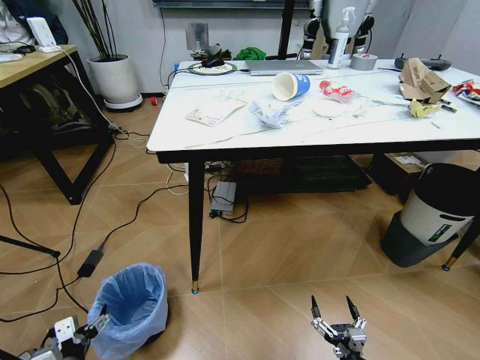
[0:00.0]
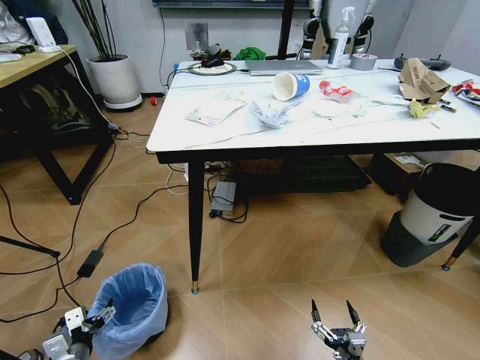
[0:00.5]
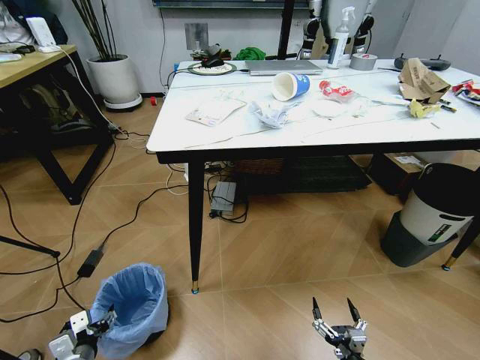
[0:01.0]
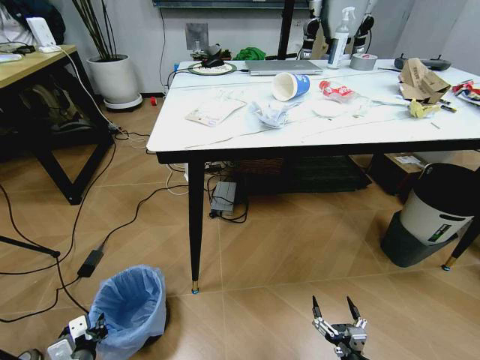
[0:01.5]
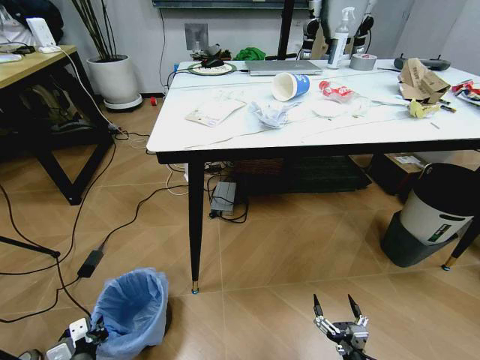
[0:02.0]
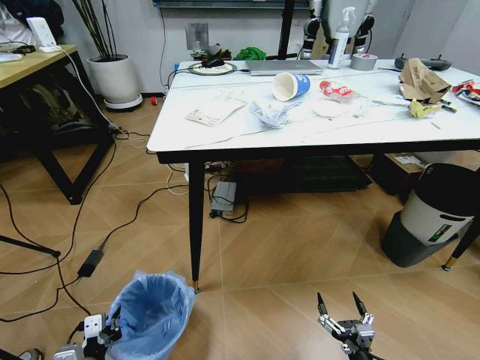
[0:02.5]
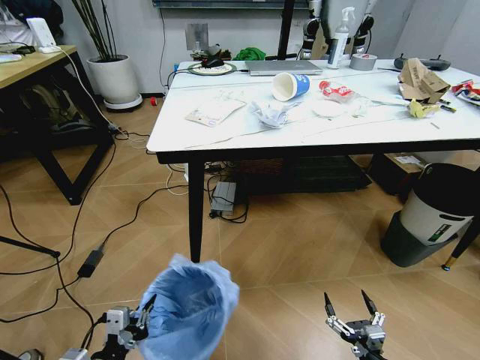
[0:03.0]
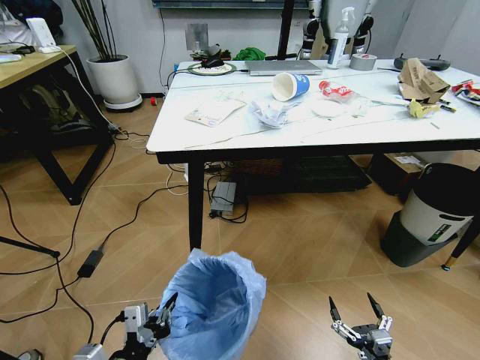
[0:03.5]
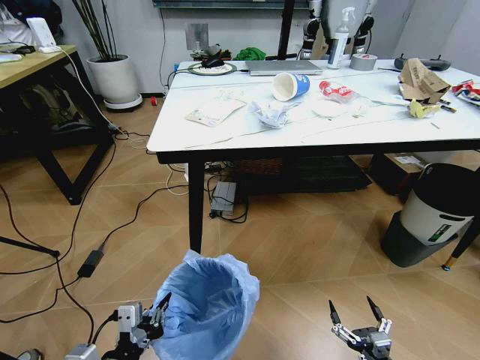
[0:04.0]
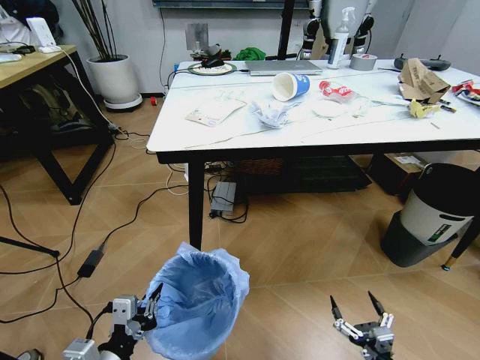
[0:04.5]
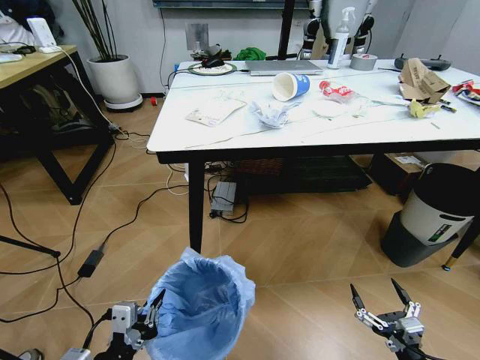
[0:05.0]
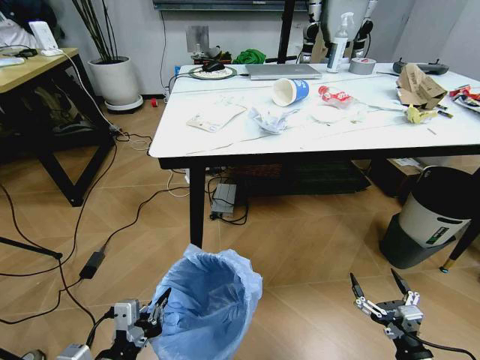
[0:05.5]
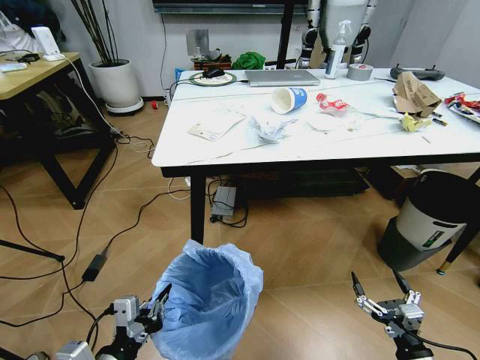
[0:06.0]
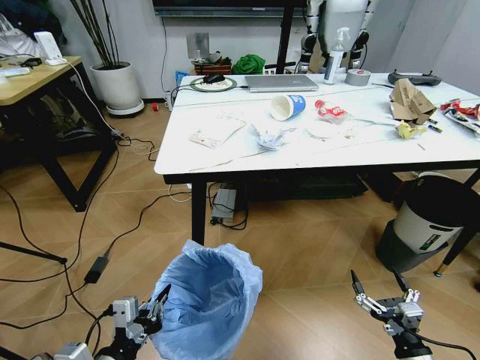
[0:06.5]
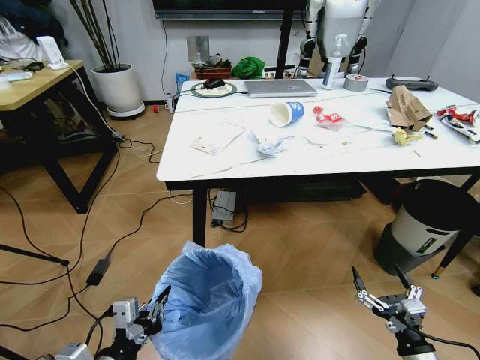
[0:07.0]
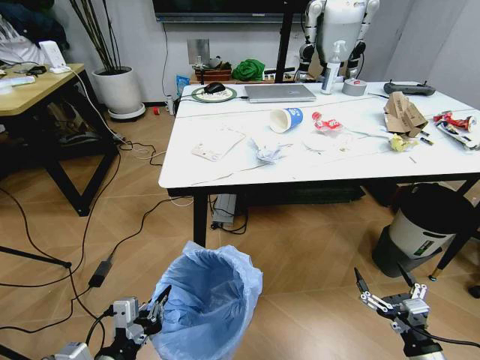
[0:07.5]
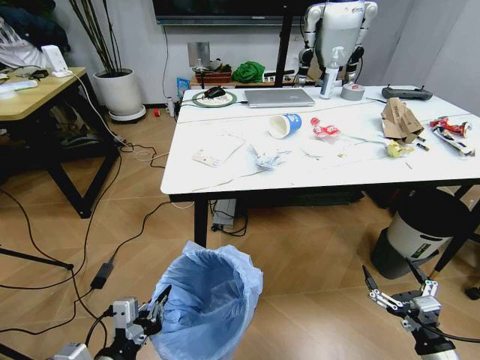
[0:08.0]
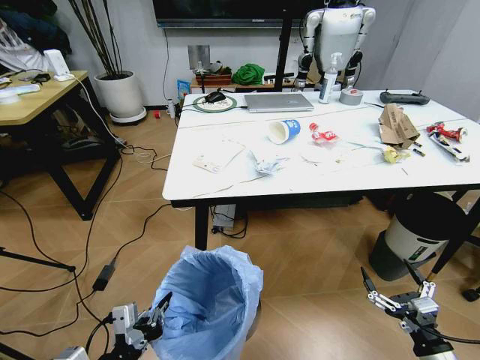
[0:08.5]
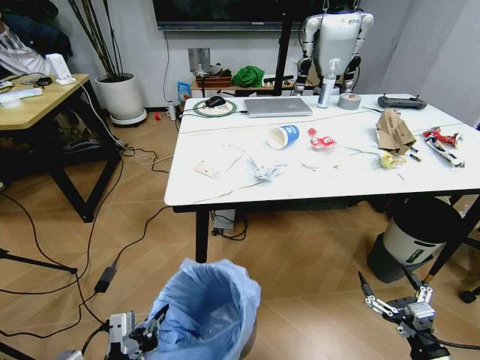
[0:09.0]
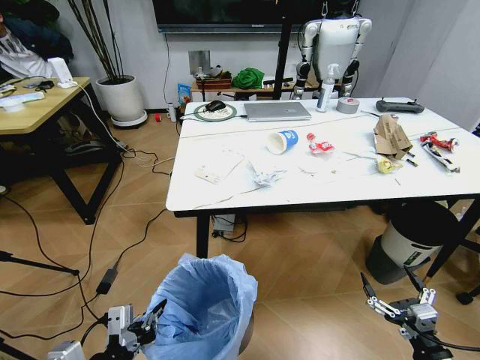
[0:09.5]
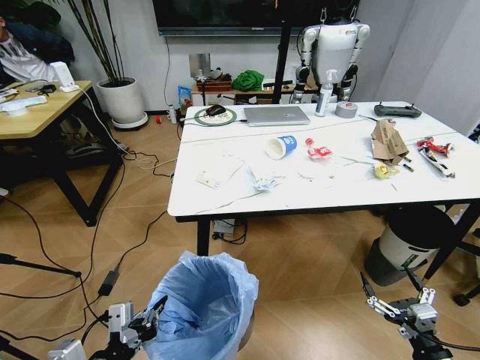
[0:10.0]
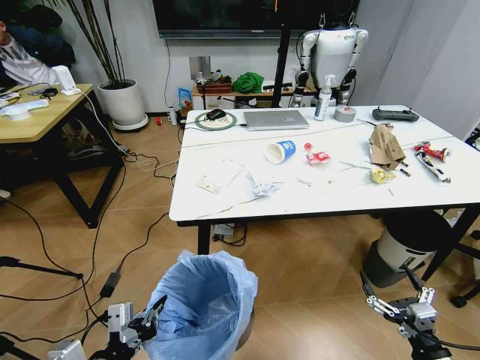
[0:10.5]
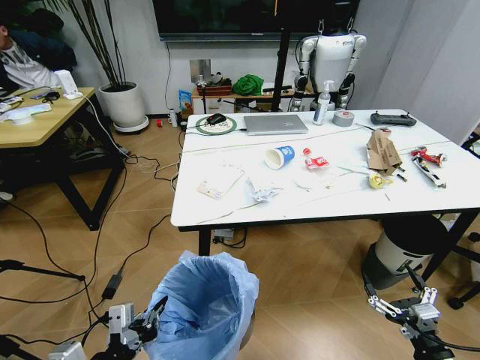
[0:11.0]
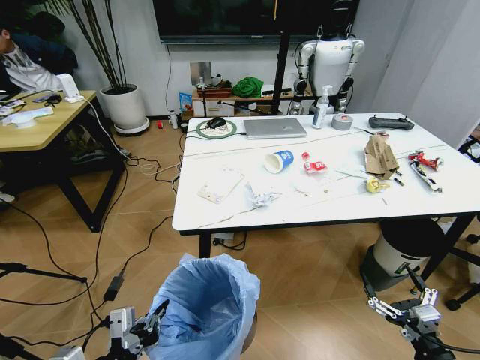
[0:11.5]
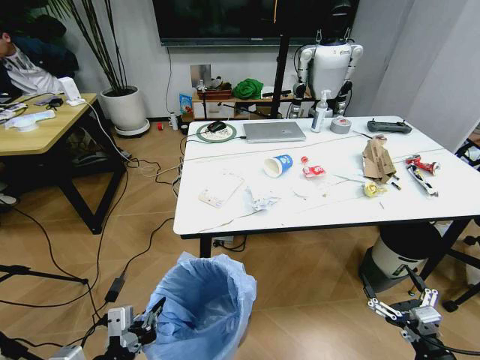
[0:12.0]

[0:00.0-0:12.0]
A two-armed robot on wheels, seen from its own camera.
Task of the whole recording: Pick up the trash bin and place the trash from the table into it.
0:00.0 to 0:02.0: The left gripper closes its fingers.
0:02.0 to 0:04.0: The left gripper goes some 20 cm upward and to the right. The right gripper changes place by approximately 5 cm.
0:04.0 to 0:06.0: The right gripper goes approximately 5 cm upward.

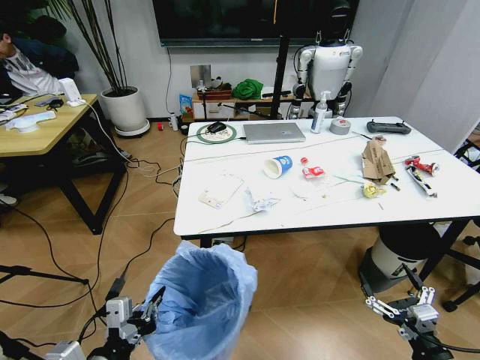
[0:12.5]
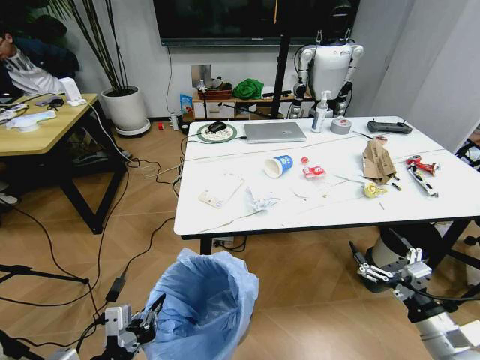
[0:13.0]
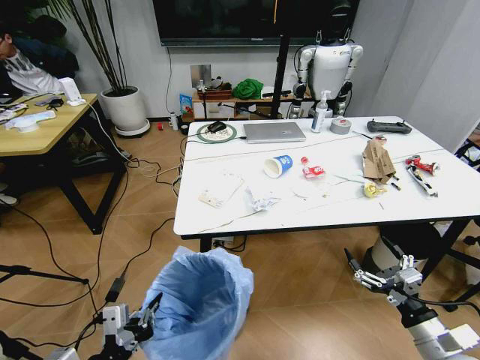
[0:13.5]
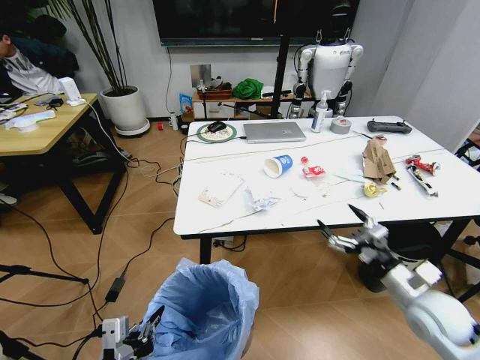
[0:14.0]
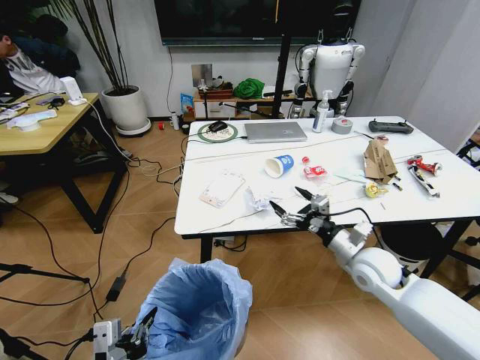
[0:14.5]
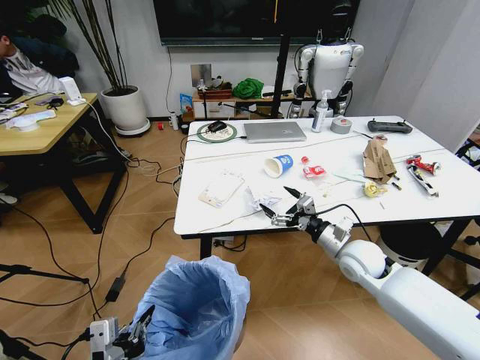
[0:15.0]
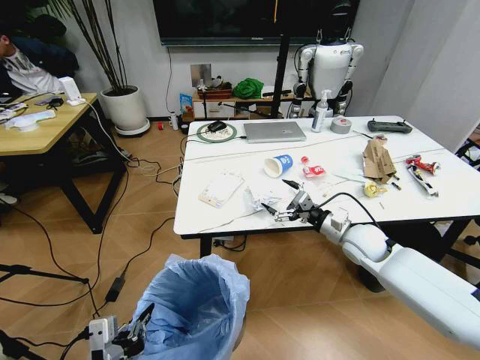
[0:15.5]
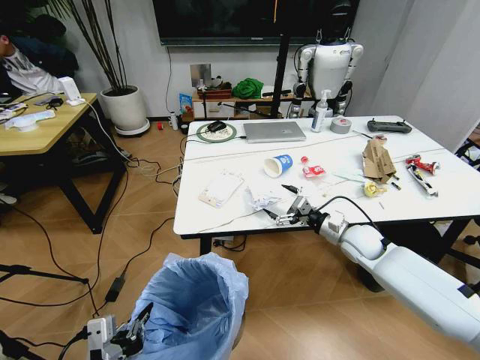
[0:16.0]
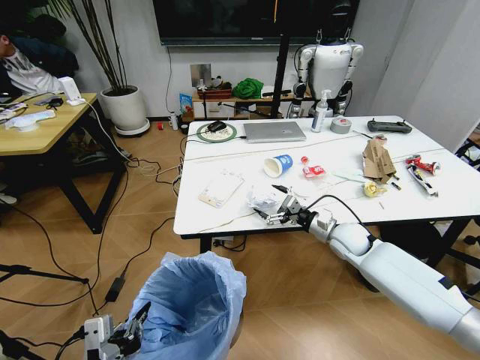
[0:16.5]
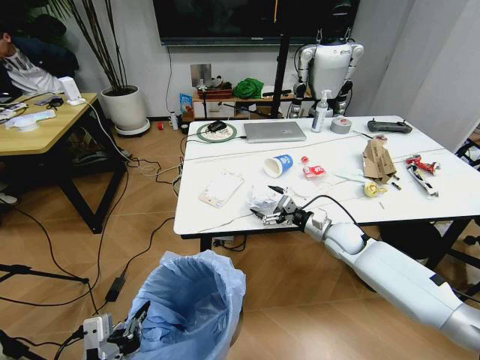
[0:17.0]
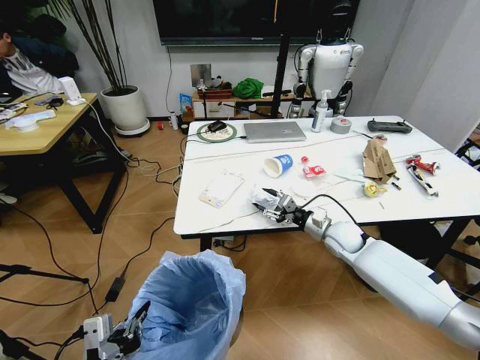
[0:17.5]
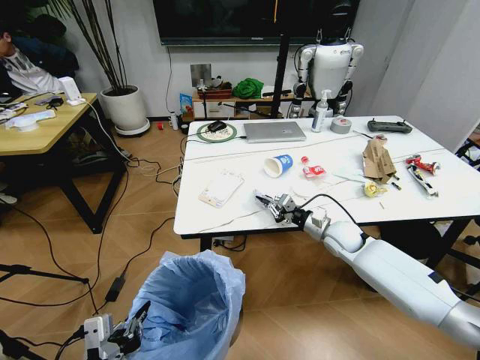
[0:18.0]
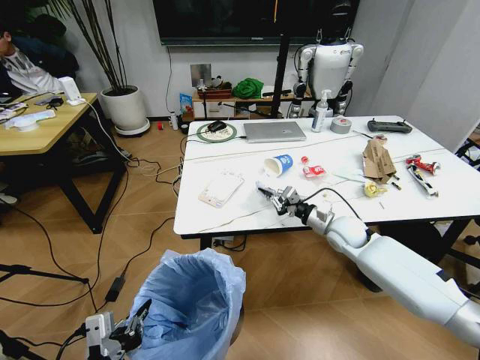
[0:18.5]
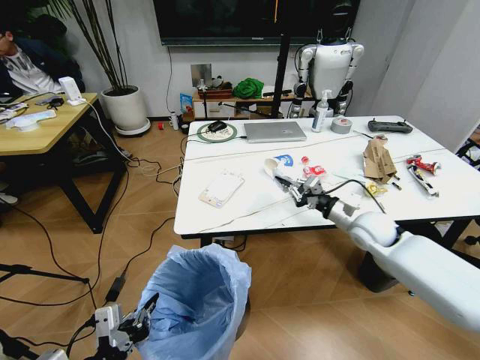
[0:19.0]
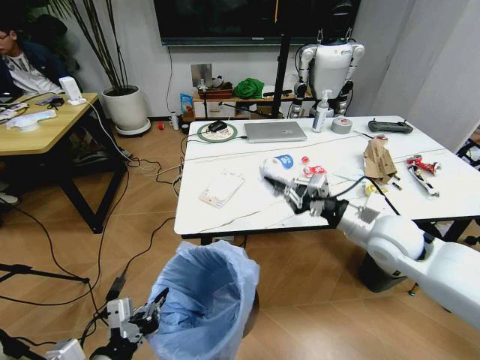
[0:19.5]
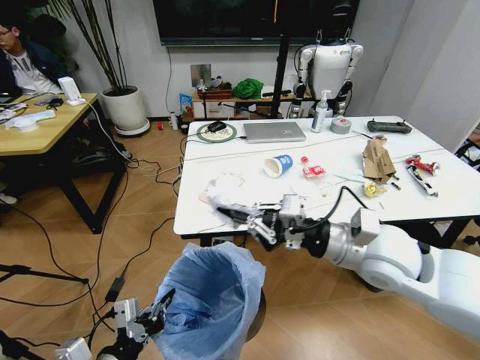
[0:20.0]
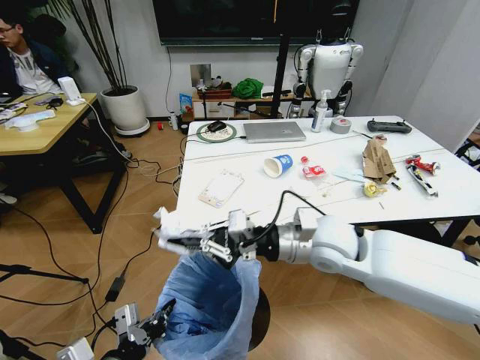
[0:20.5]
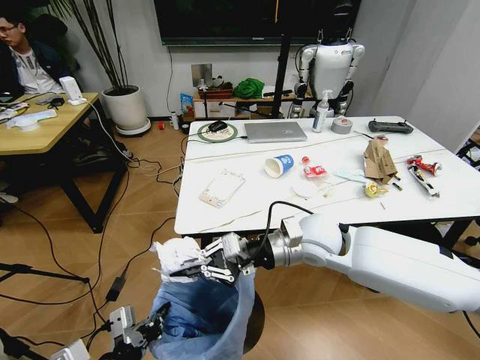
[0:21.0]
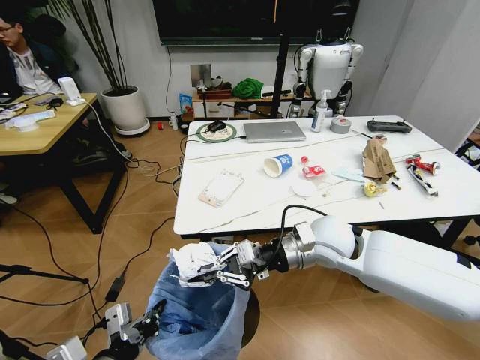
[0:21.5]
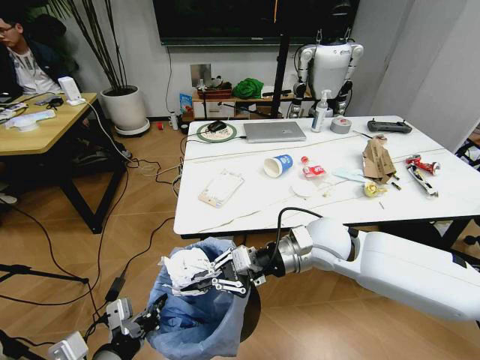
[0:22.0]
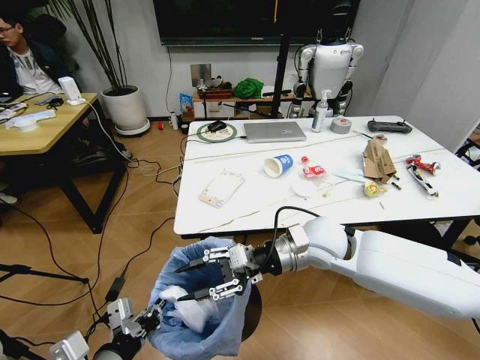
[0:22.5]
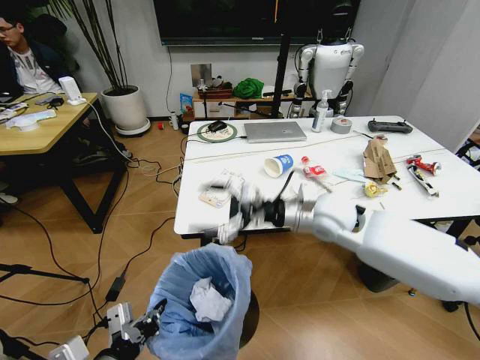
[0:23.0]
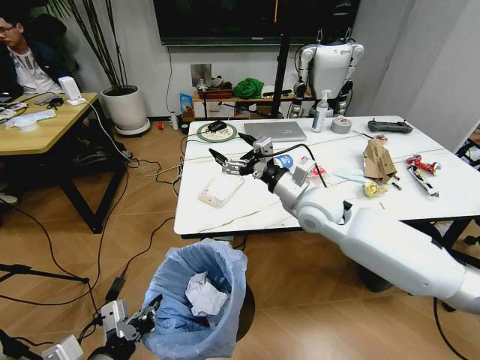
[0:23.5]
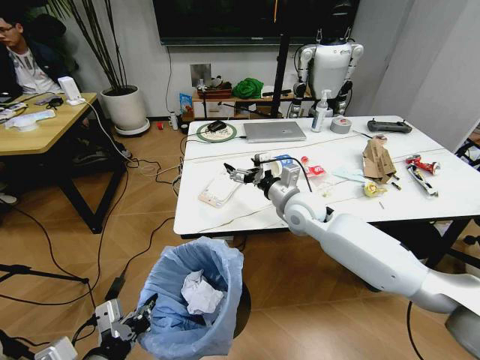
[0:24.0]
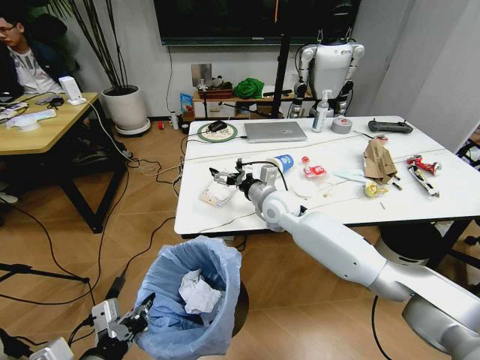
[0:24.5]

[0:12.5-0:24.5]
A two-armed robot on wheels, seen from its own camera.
Task of the whole recording: Pick up the trash bin and place the trash from the table into it.
0:12.5 to 0:14.5: The right gripper travels forward by roughly 25 cm.
0:14.5 to 0:16.5: The right gripper shifts about 10 cm forward.
0:16.5 to 0:18.5: The right gripper closes its fingers.
0:18.5 to 0:20.5: The right gripper goes approximately 25 cm upward, to the left and backward.
0:20.5 to 0:22.5: The right gripper opens its fingers.
0:22.5 to 0:24.5: The right gripper travels forward and to the left by about 15 cm, and opens.

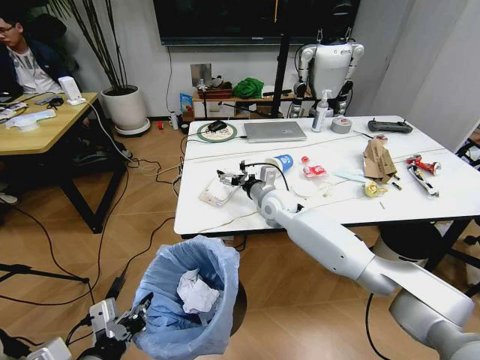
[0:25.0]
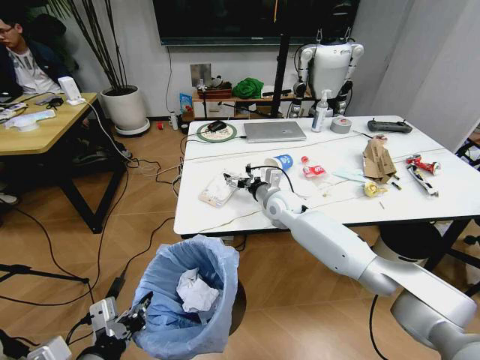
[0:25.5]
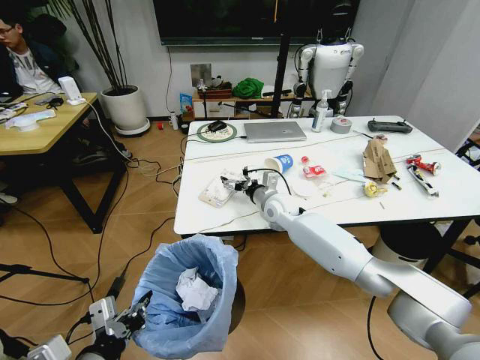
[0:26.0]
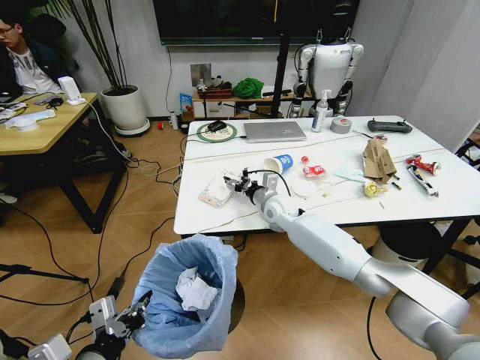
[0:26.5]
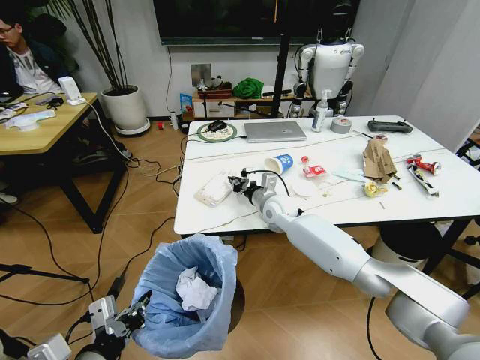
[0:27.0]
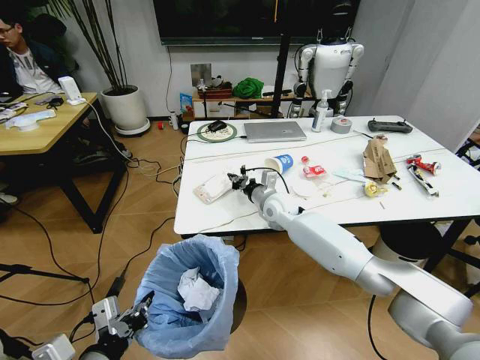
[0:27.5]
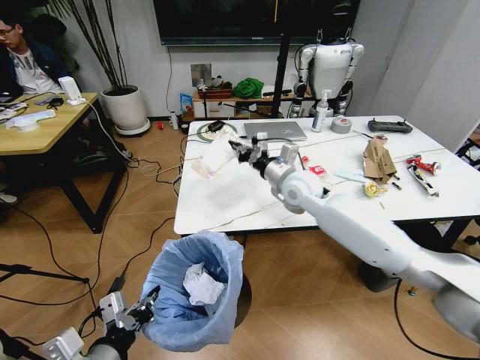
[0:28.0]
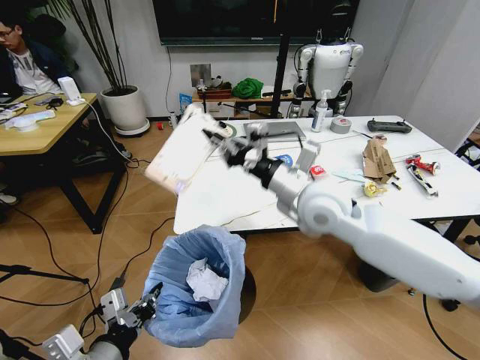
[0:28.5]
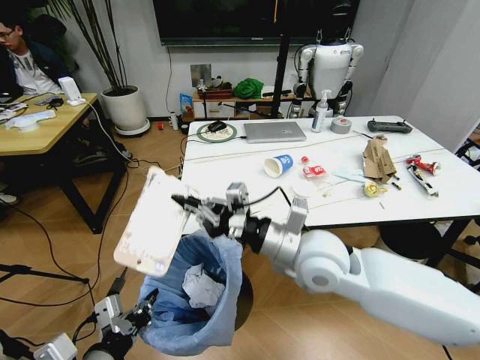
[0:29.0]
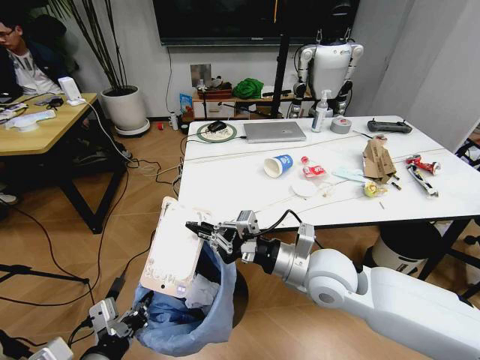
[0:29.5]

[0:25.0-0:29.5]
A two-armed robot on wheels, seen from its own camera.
Task of the whole recording: Pick up the trash bin and place the trash from the table into it.
0:25.0 to 0:27.0: The right gripper closes up.
0:27.0 to 0:29.5: The right gripper goes about 25 cm backward.
